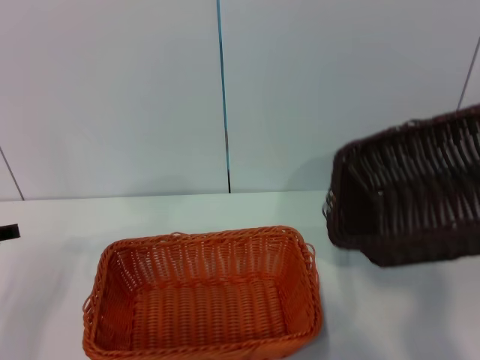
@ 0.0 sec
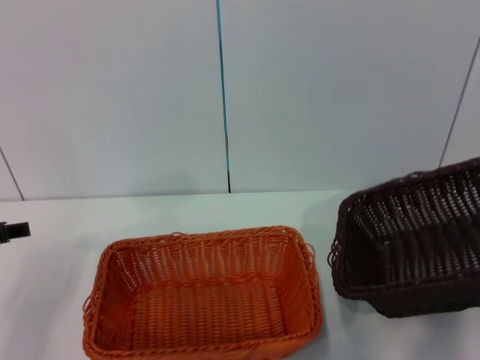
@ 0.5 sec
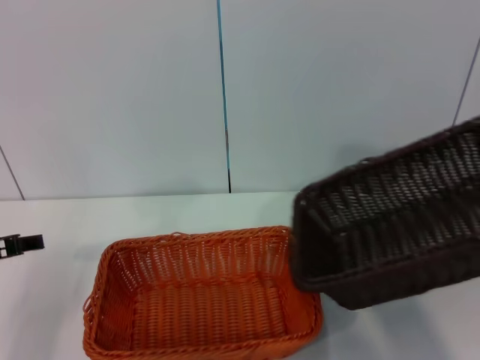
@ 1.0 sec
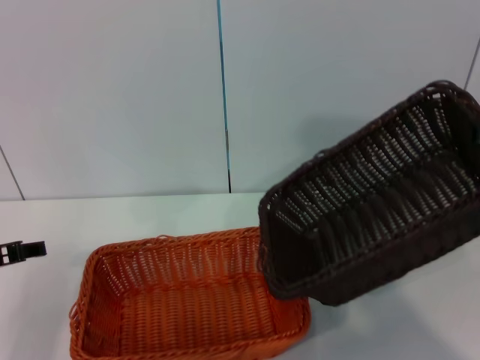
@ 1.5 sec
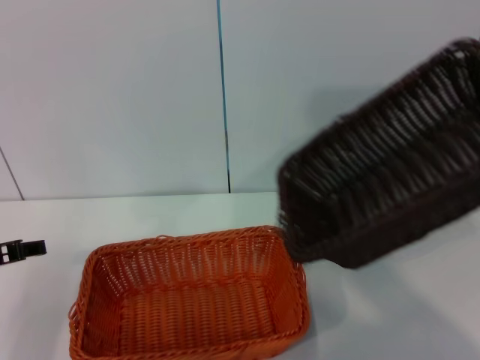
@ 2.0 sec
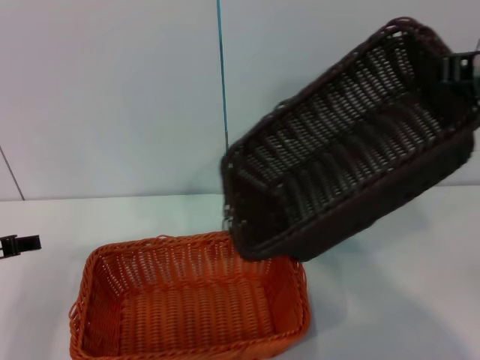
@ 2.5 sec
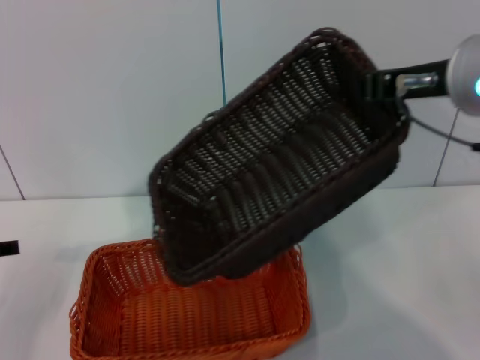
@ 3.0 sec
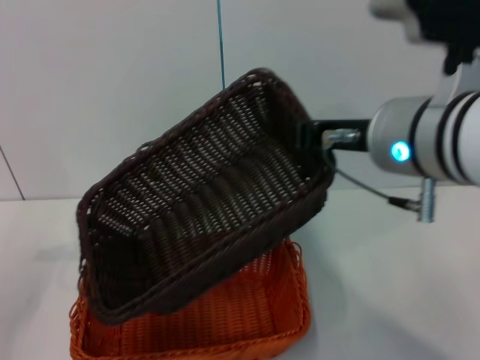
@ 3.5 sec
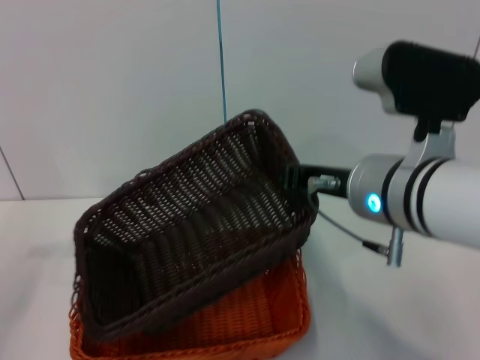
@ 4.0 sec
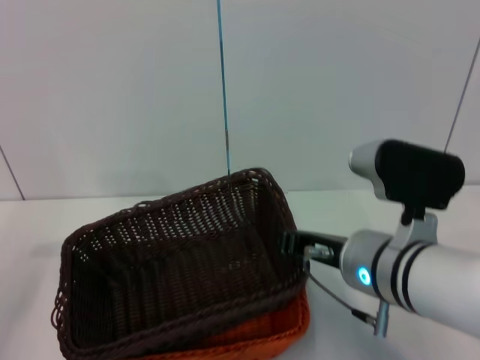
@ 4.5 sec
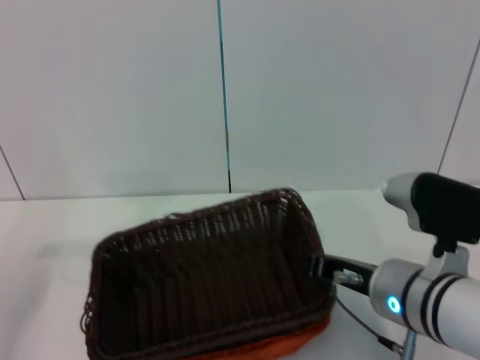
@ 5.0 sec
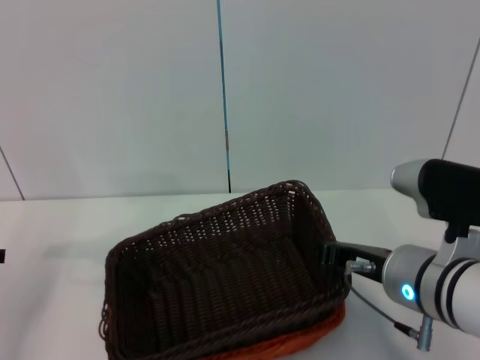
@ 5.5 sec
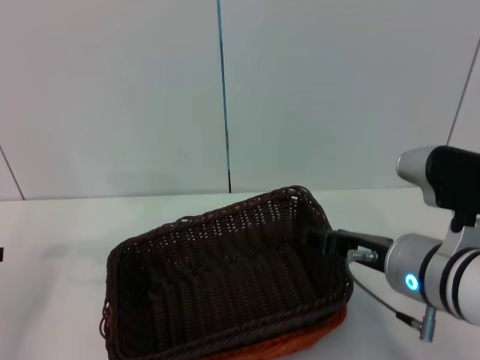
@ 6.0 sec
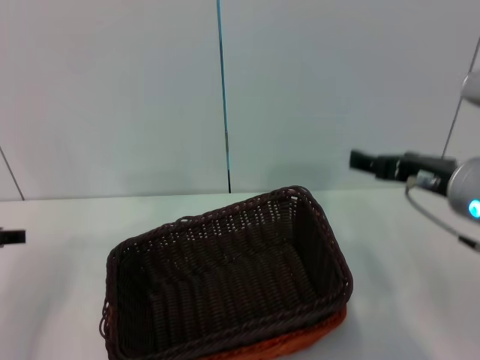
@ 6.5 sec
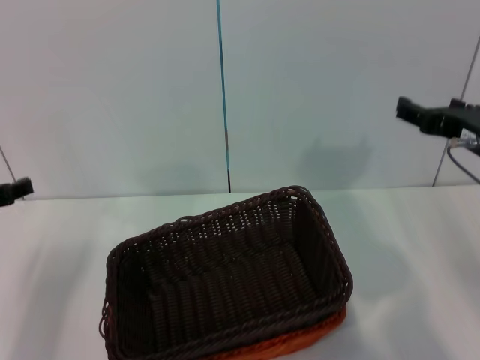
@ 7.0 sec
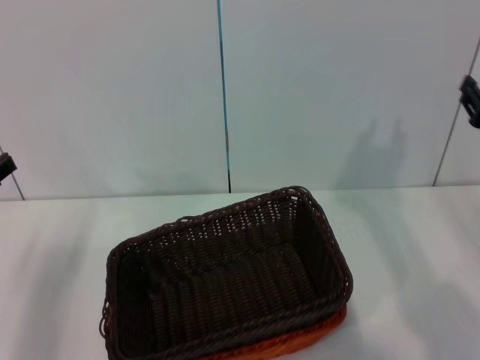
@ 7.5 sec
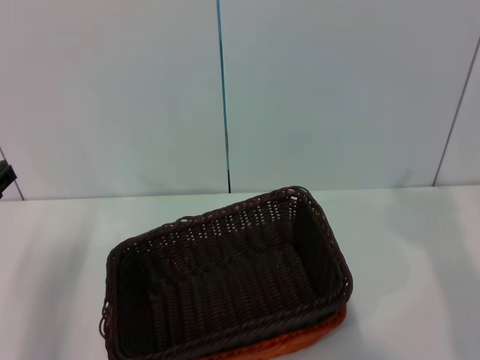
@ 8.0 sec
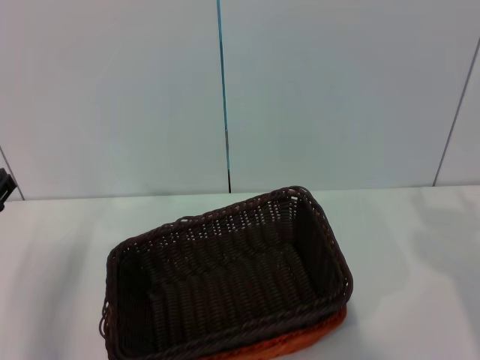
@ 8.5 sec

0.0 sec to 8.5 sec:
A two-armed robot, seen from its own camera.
Step, 0.0 sec to 5.5 sec: Place the dark basket on the light basket with the right gripper.
0.0 sec to 2.0 sec: The right gripper shifts roughly 10 cm upward and to the left.
2.0 sec to 4.0 sec: The left gripper is displaced to the left by some 5 cm. The right gripper goes approximately 15 cm to the left and downward.
4.0 sec to 6.5 sec: The right gripper travels to the right by roughly 10 cm, goes downward and returns, approximately 10 cm each way, and opens.
6.5 sec to 8.5 sec: The right gripper moves to the right and downward, roughly 20 cm, while the left gripper ends up approximately 5 cm from where it was.
